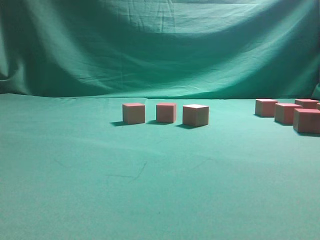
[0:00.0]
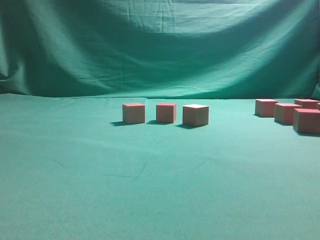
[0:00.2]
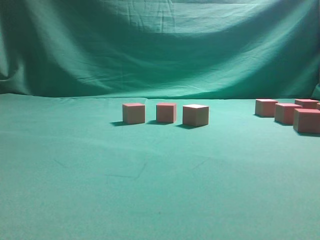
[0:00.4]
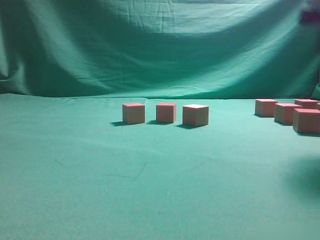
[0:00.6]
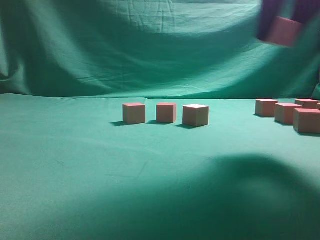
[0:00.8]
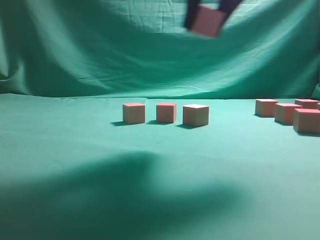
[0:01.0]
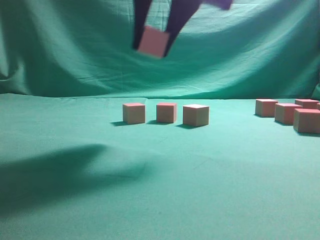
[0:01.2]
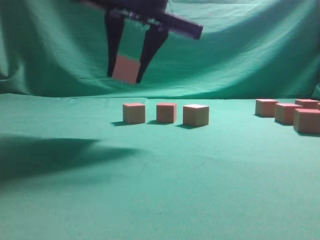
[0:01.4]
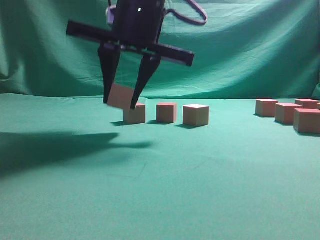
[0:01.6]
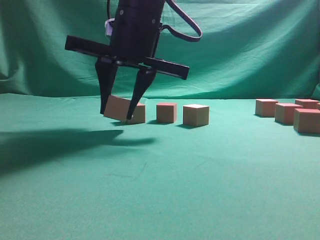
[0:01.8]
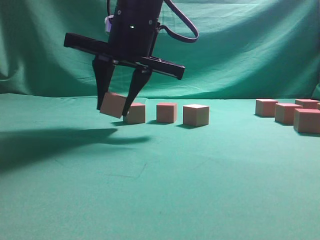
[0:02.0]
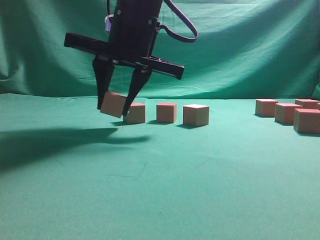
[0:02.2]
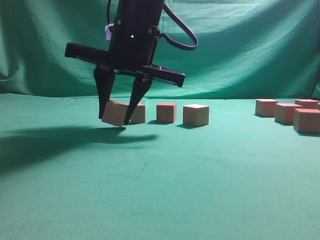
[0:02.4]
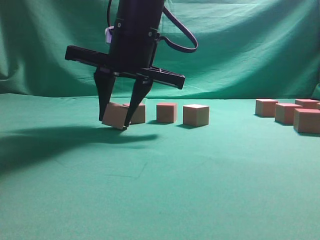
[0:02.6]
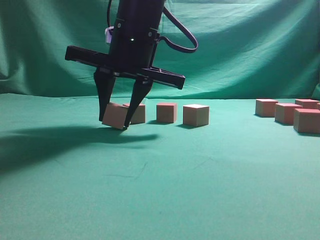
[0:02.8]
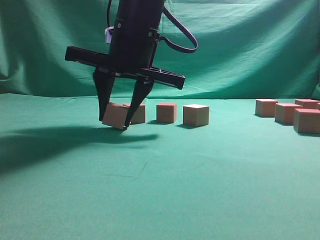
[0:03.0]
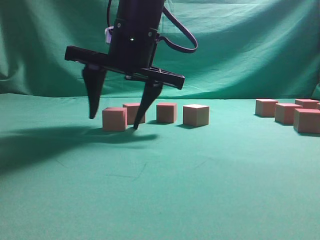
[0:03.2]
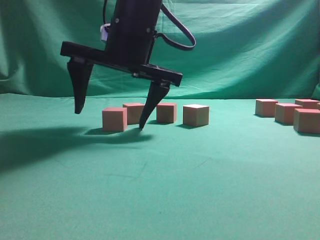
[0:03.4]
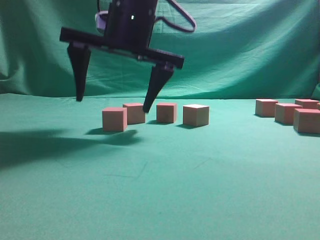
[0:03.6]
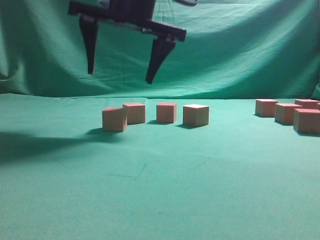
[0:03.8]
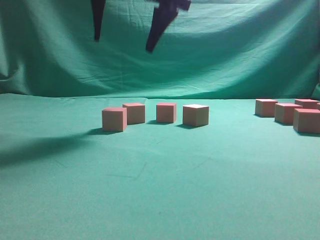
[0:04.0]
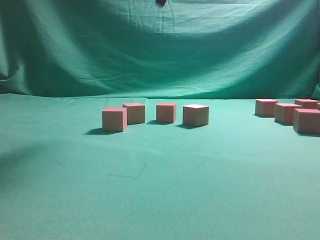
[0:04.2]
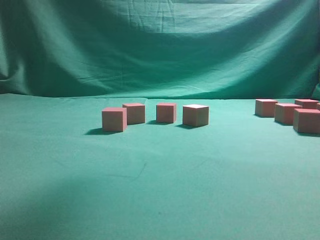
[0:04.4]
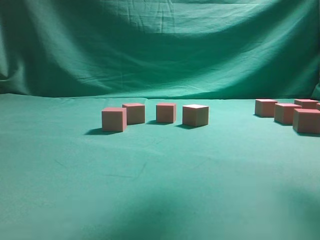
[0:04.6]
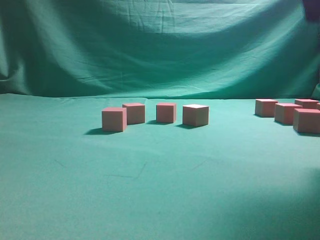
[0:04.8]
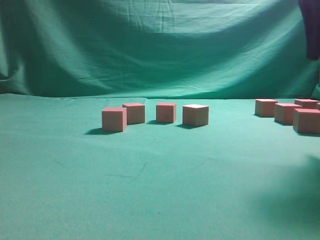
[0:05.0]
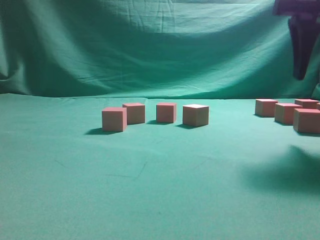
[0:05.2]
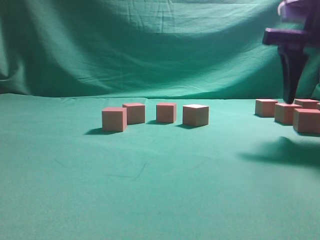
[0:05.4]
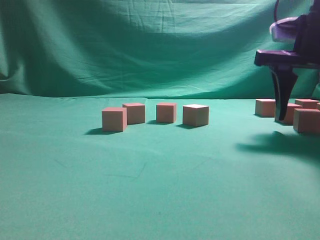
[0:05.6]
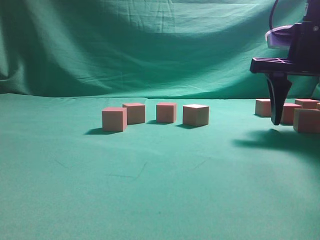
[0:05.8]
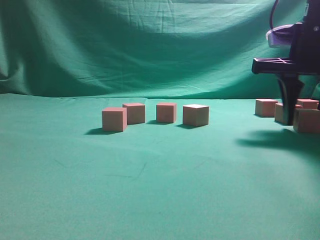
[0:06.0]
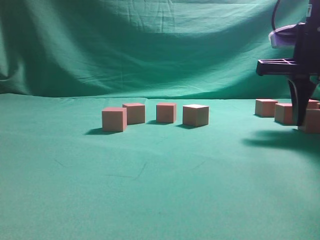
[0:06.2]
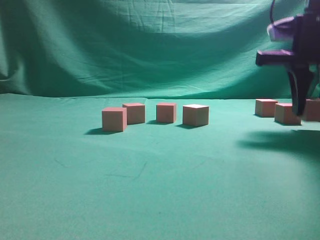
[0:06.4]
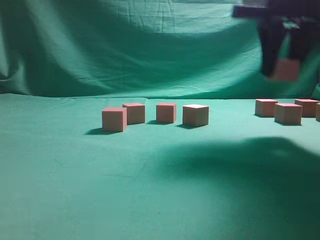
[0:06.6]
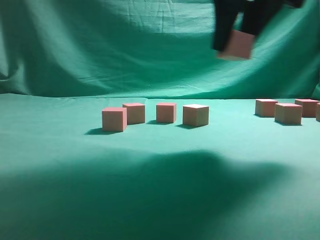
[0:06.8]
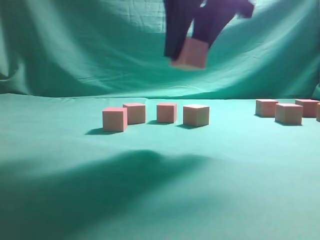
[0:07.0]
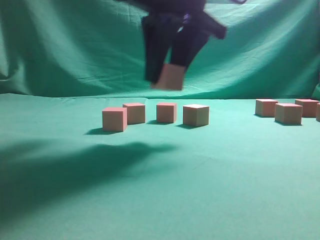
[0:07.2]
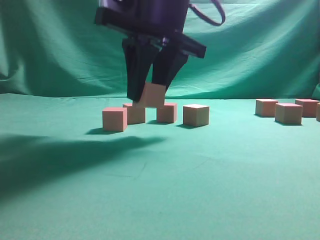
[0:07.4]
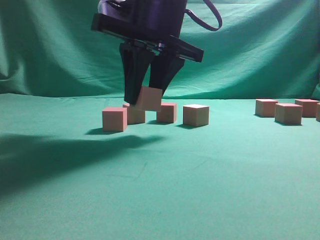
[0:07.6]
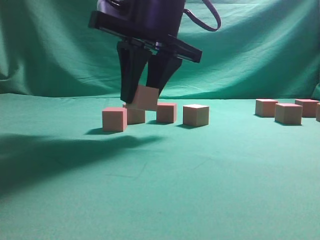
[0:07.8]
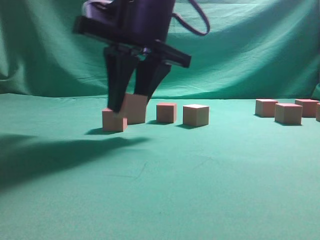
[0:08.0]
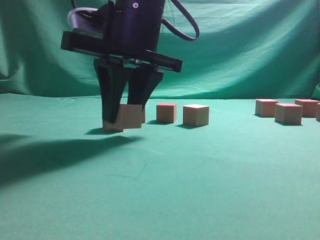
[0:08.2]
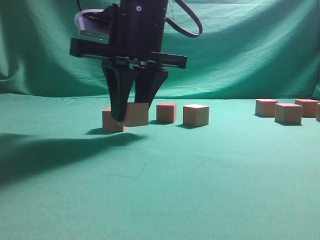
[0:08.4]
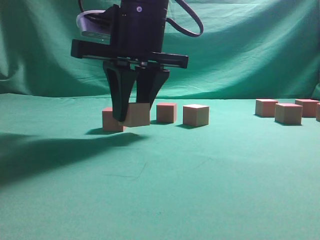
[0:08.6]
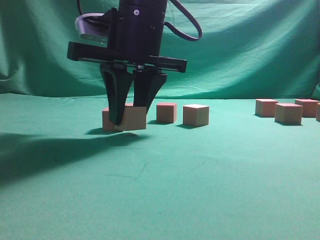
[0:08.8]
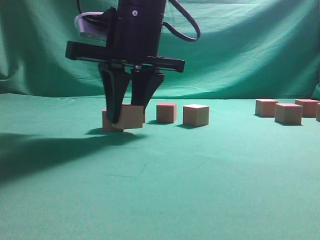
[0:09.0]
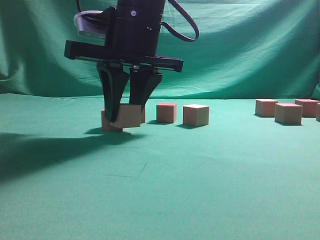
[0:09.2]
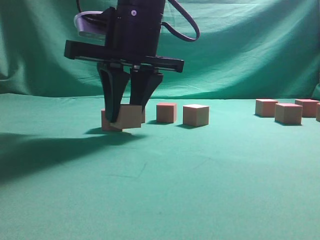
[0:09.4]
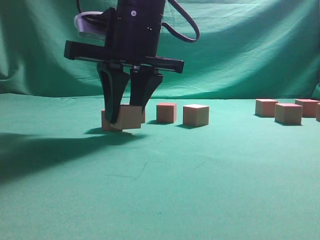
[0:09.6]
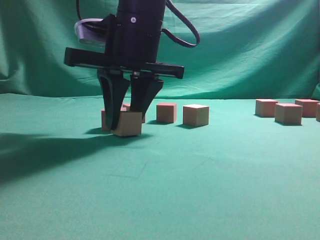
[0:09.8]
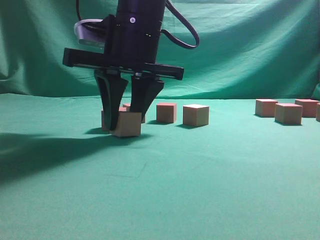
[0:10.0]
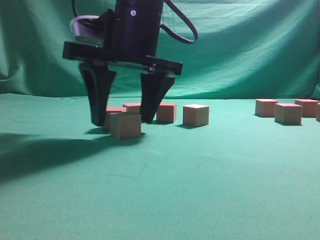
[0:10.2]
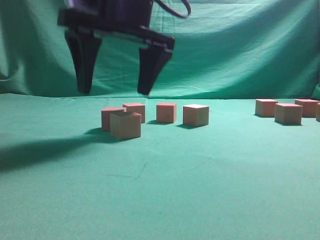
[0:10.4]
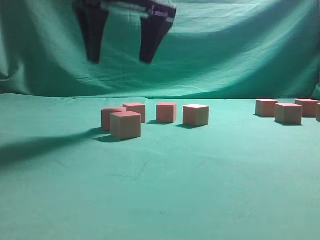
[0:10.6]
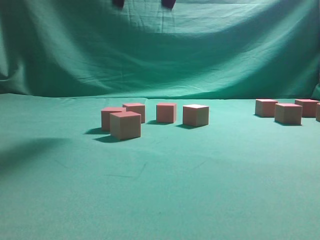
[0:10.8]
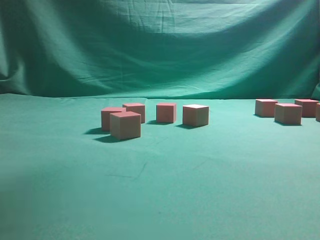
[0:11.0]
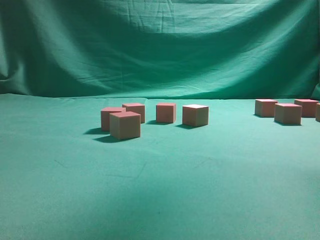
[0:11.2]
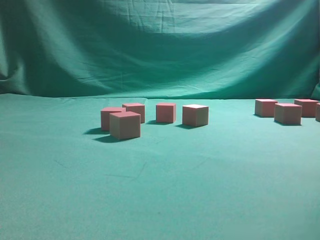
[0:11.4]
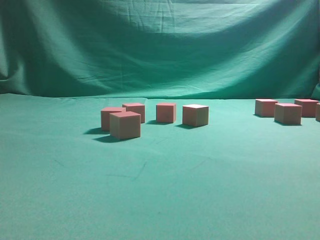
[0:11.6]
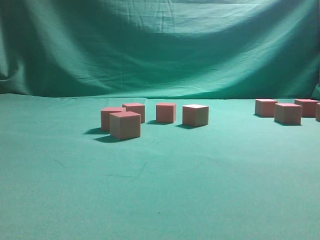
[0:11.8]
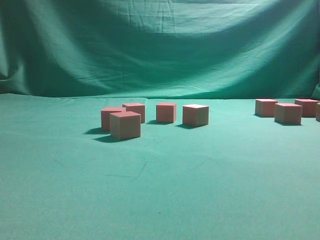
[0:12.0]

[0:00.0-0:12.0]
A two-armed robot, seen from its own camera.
Task of the whole recording: pick up the multiple cubes in two columns one by one and place them in another position on the table.
Step, 0:00.6 to 0:03.8: Place the block at the correct position to assemble the letter S.
Step, 0:04.0 to 0:06.4: Pick up the block on the table.
Step, 0:06.6 to 0:10.4: Place the block at the correct position to assemble the letter S.
0:00.0 to 0:01.6: The right gripper is displaced to the left by about 30 cm.
0:01.6 to 0:03.0: The grippers stay close to where they were, moving slightly.
0:03.0 to 0:04.4: The right gripper shifts roughly 20 cm upward and to the right, and opens its fingers.
0:04.4 to 0:06.0: The right gripper shifts roughly 25 cm downward and to the right.
0:06.0 to 0:07.6: The right gripper heads to the left, covering about 20 cm.
0:07.6 to 0:09.0: The grippers move only a little.
0:09.0 to 0:10.4: The right gripper opens its fingers.
0:10.4 to 0:12.0: The right gripper goes about 35 cm to the right.

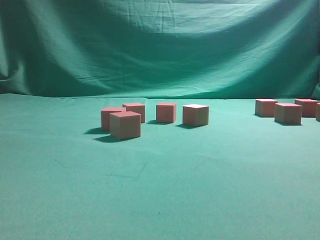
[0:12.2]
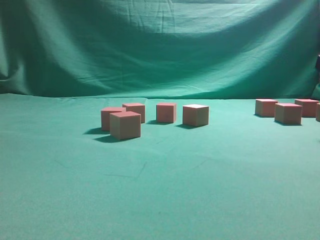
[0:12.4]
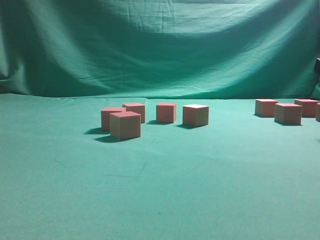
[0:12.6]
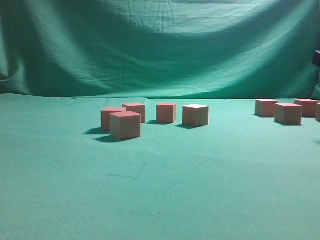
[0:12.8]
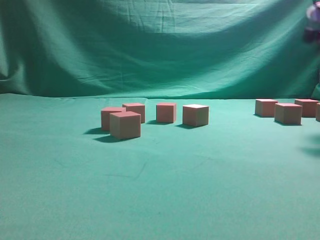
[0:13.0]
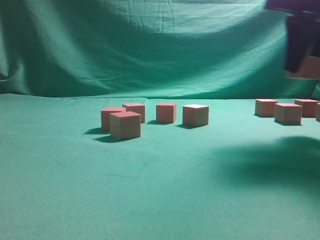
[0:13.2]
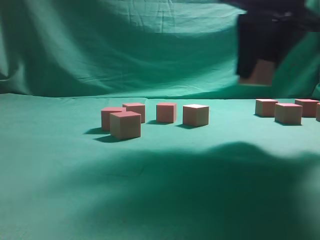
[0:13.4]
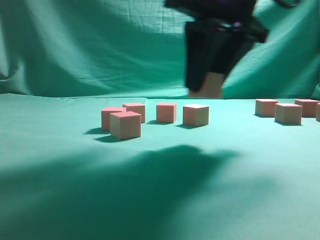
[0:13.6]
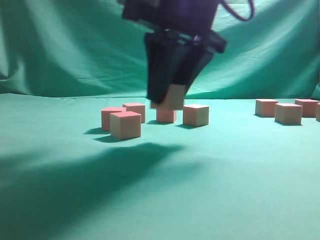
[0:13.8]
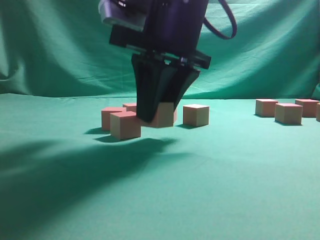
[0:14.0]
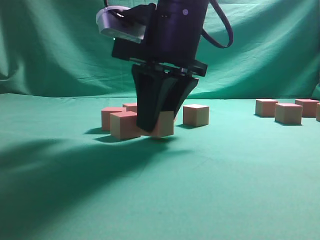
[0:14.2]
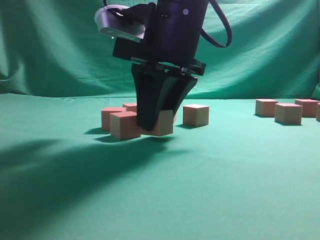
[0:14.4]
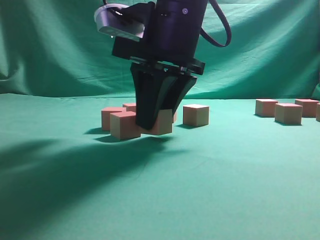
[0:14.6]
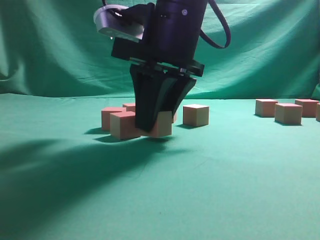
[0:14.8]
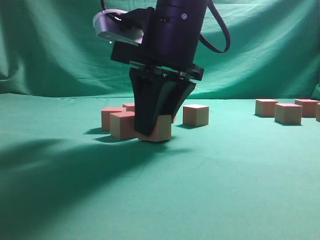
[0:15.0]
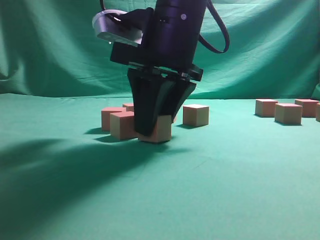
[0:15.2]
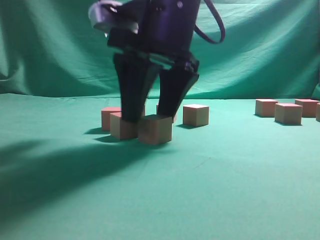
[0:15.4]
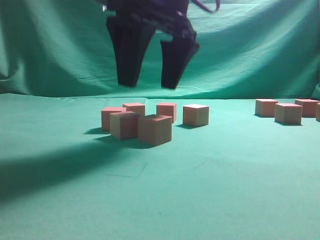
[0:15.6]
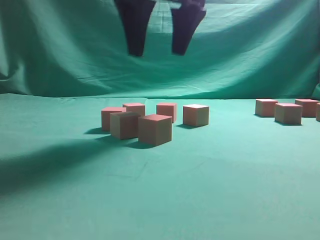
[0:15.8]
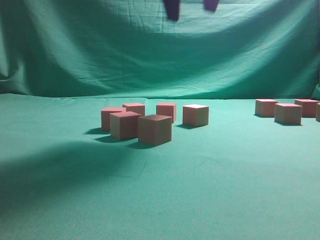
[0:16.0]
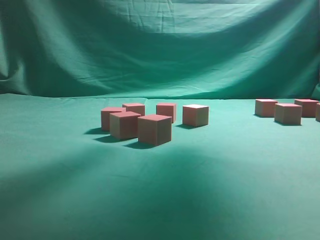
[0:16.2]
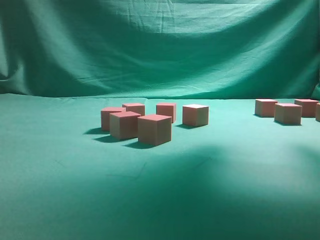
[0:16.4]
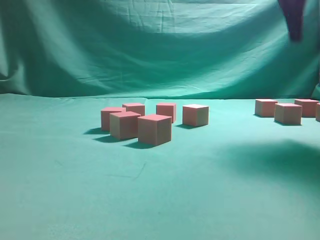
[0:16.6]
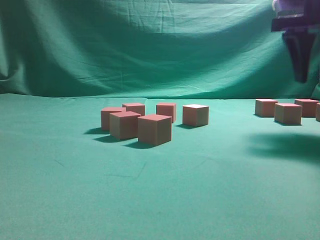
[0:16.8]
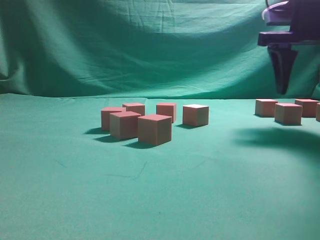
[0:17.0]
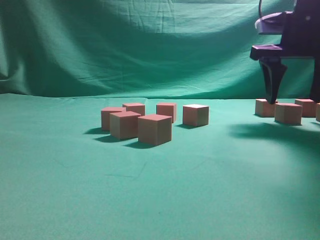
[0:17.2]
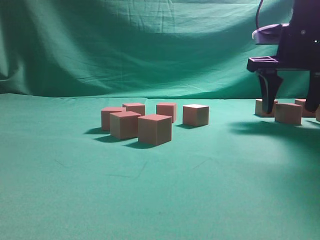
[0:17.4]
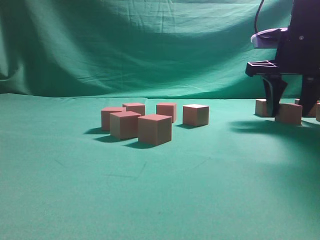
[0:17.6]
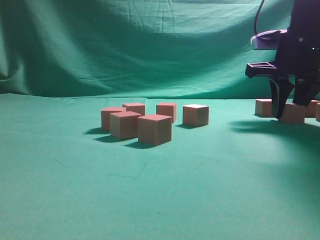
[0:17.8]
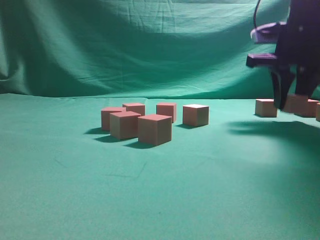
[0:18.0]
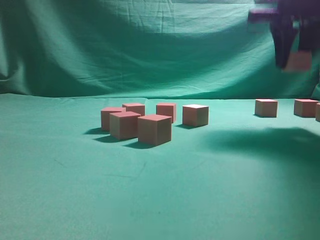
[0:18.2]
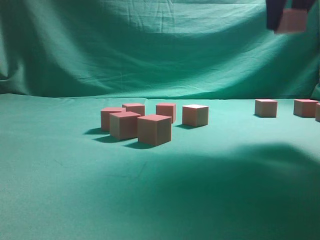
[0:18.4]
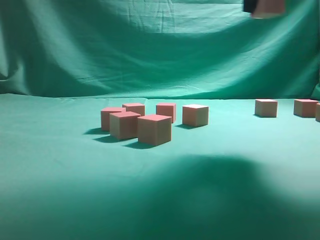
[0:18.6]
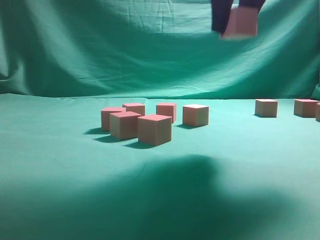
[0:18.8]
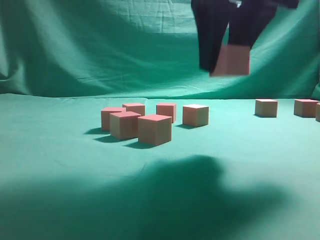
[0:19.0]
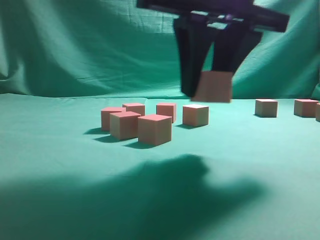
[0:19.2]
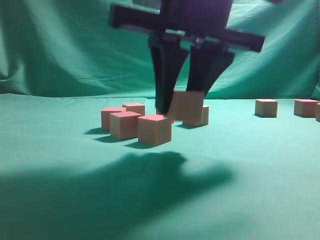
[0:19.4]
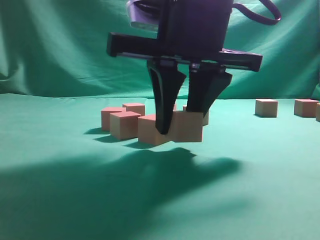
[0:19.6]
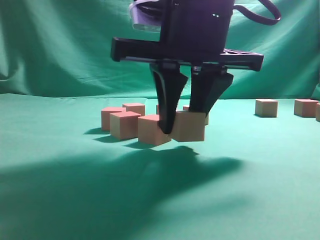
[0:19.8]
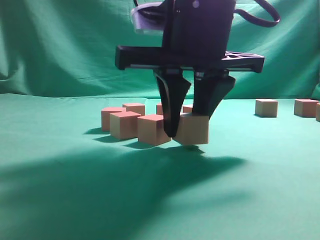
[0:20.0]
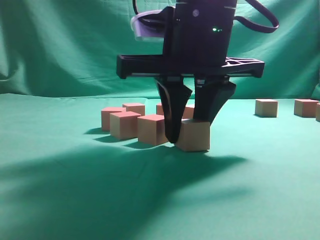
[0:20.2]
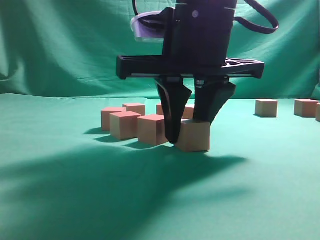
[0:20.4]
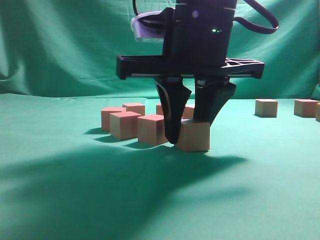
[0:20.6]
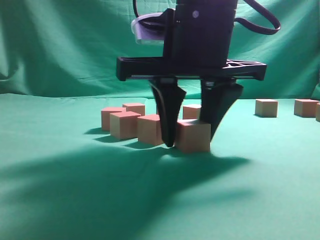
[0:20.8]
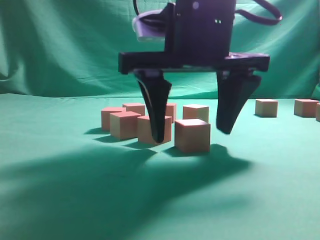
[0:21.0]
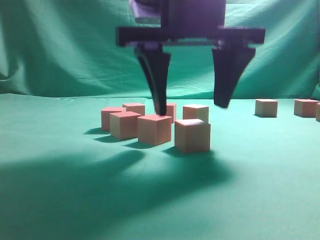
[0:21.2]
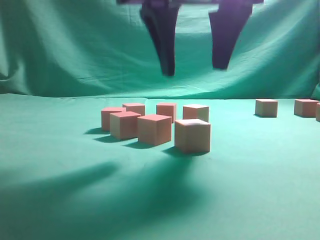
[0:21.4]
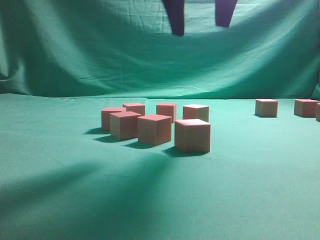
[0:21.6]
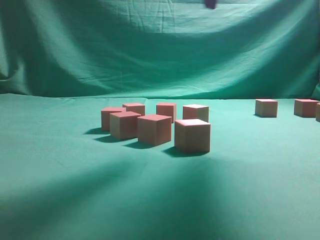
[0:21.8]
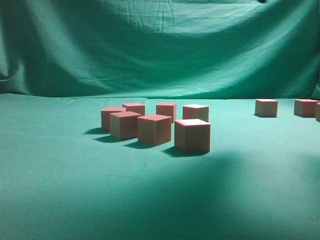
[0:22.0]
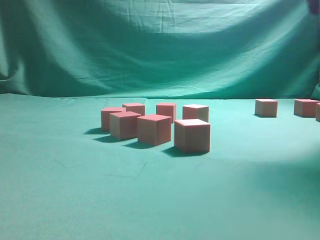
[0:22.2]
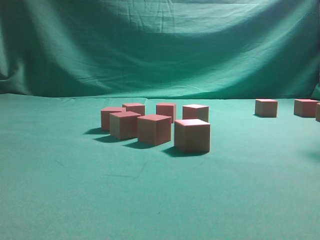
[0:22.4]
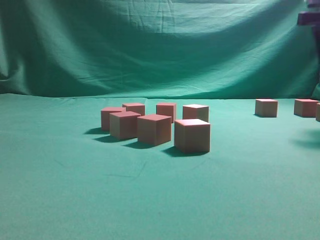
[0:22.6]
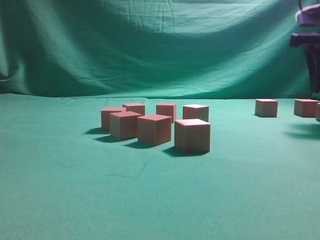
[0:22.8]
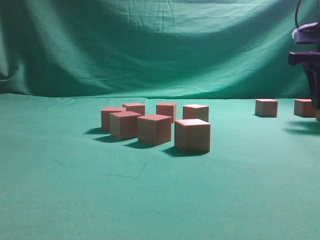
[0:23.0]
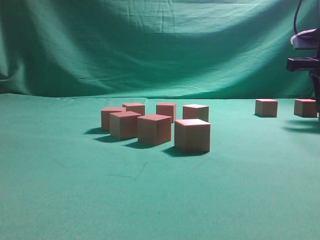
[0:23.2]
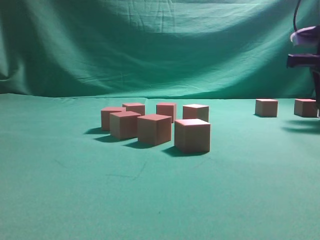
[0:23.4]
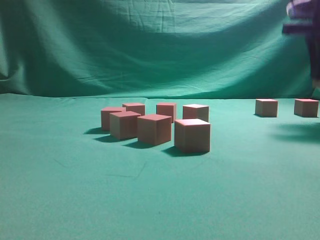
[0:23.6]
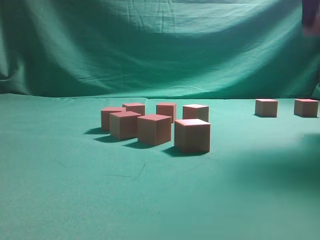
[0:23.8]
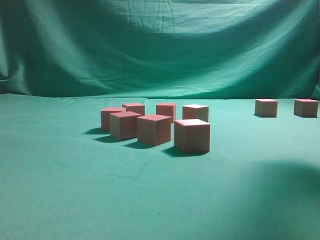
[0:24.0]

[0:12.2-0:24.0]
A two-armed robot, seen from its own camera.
Task of the whole recording: pick up the multiple cubes in two columns one by one and place them in another position on the table.
Step, 0:13.2 to 0:15.6: Place the block at the correct position to assemble the letter S.
Step, 0:15.8 to 0:18.0: Pick up the block on the table.
Step, 0:18.2 to 0:21.2: Place the block at the correct position to assemble the letter S.
Step, 0:21.4 to 0:23.4: Pick up the block on the table.
0:12.2 to 0:13.6: The right gripper heads to the left, covering roughly 20 cm, and closes its fingers.
0:13.6 to 0:15.2: The right gripper is displaced to the left by roughly 5 cm.
0:15.2 to 0:16.6: The right gripper travels to the right and upward by roughly 25 cm, and opens.
0:16.6 to 0:18.2: The right gripper closes its fingers.
0:18.2 to 0:19.6: The right gripper travels to the left and backward by approximately 20 cm.
0:19.6 to 0:21.0: The right gripper opens.
0:21.0 to 0:22.6: The right gripper goes roughly 25 cm to the right and forward.
0:22.6 to 0:24.0: The right gripper goes approximately 15 cm upward, to the left and backward, and closes.
